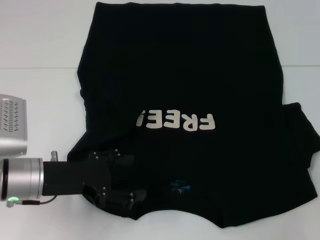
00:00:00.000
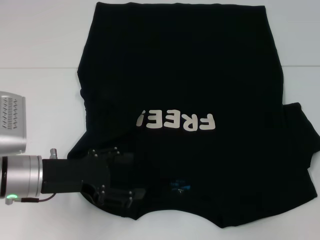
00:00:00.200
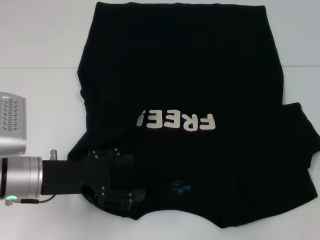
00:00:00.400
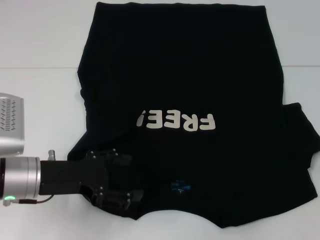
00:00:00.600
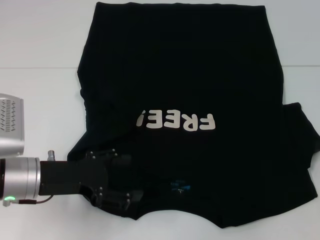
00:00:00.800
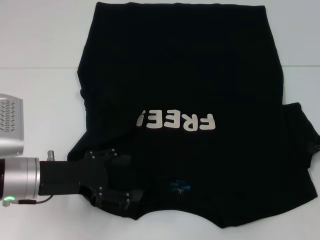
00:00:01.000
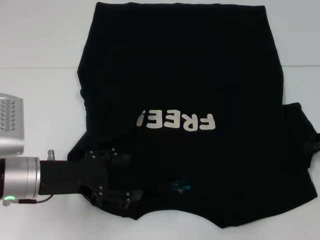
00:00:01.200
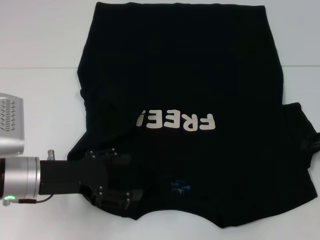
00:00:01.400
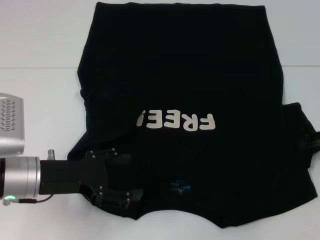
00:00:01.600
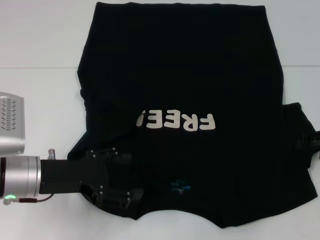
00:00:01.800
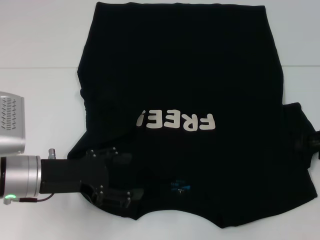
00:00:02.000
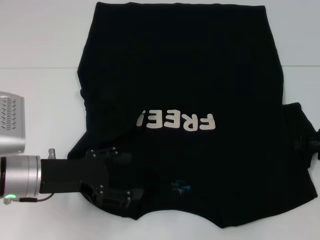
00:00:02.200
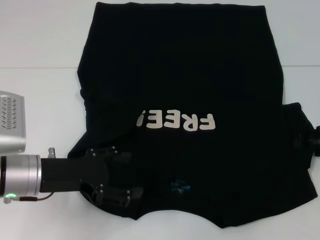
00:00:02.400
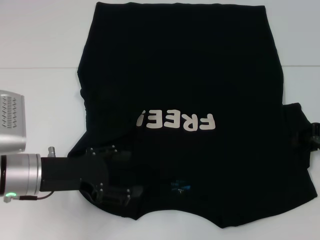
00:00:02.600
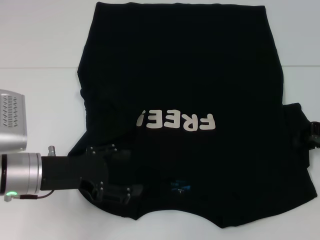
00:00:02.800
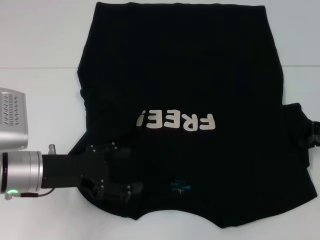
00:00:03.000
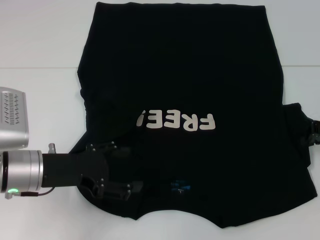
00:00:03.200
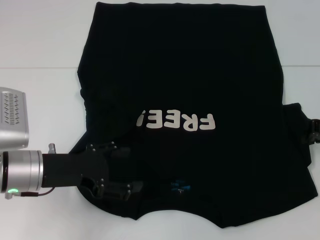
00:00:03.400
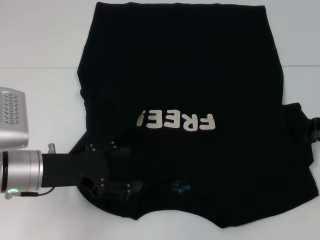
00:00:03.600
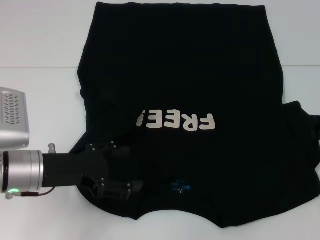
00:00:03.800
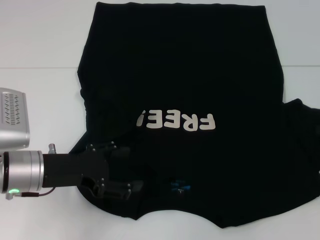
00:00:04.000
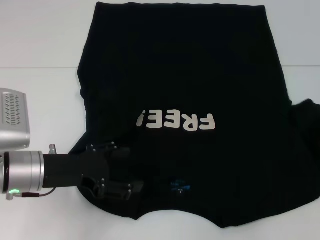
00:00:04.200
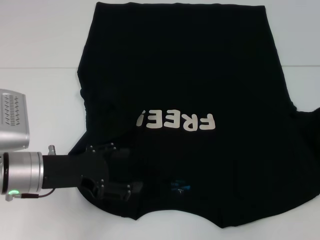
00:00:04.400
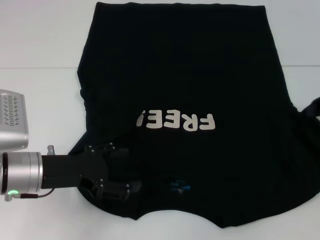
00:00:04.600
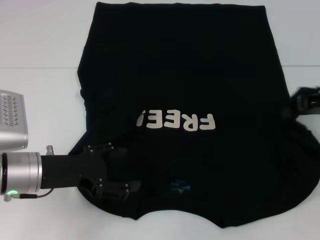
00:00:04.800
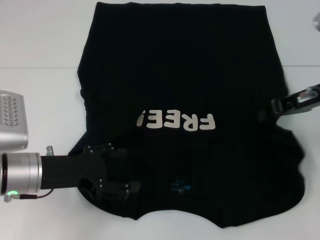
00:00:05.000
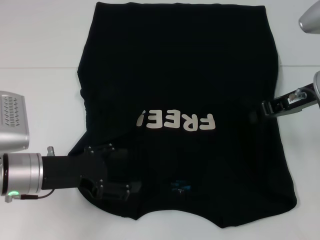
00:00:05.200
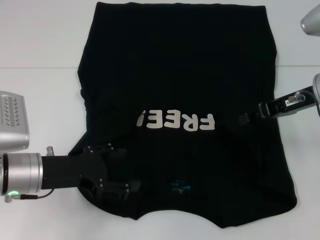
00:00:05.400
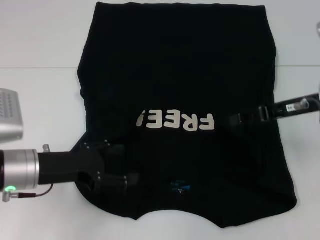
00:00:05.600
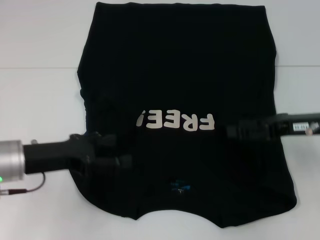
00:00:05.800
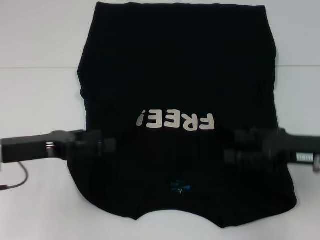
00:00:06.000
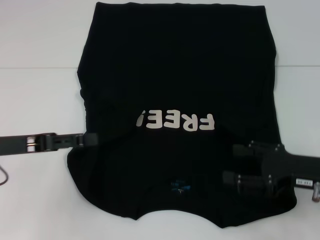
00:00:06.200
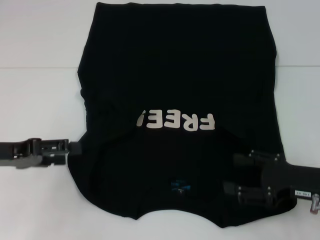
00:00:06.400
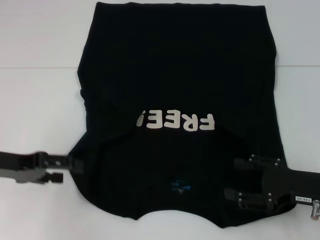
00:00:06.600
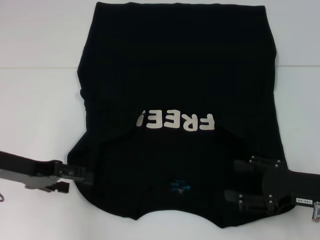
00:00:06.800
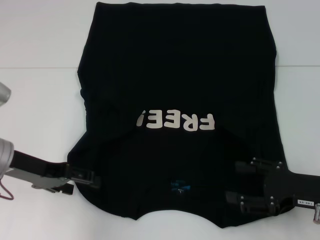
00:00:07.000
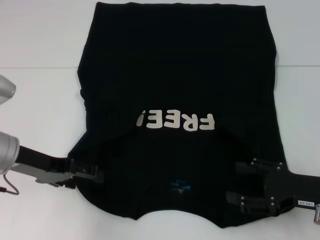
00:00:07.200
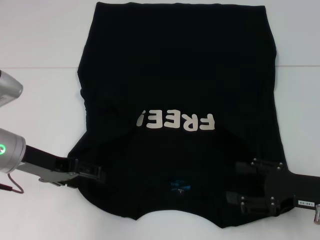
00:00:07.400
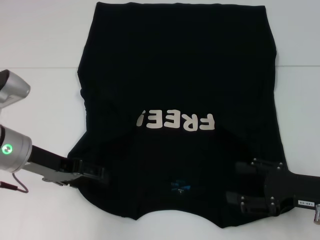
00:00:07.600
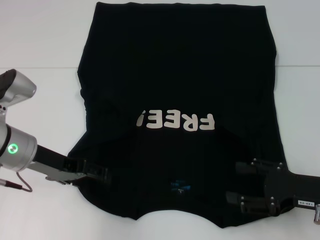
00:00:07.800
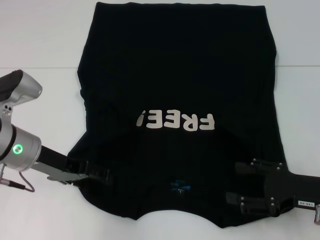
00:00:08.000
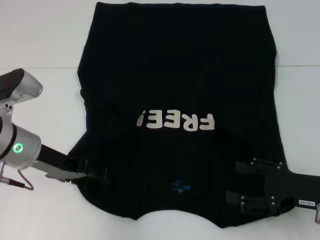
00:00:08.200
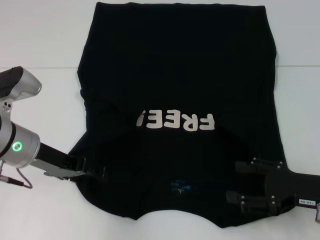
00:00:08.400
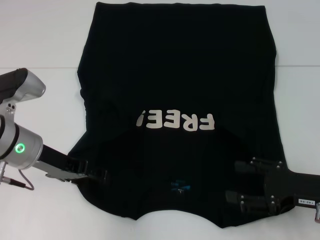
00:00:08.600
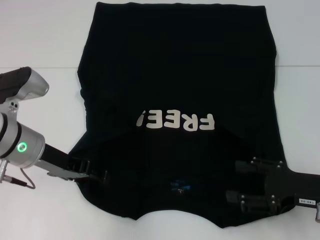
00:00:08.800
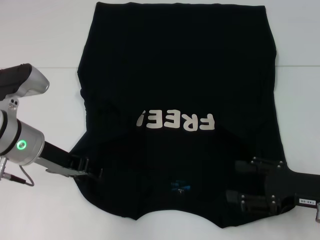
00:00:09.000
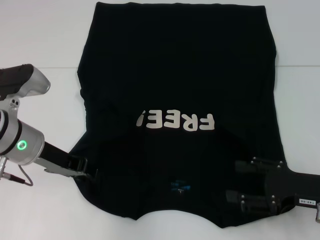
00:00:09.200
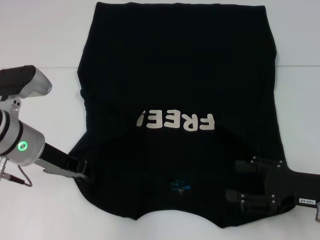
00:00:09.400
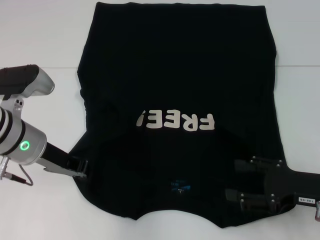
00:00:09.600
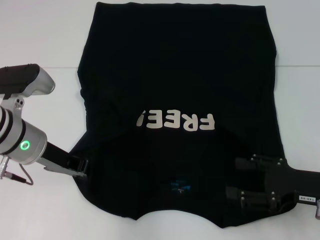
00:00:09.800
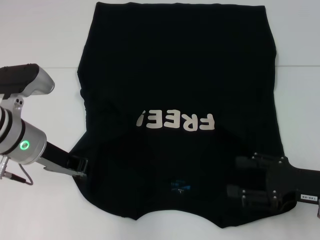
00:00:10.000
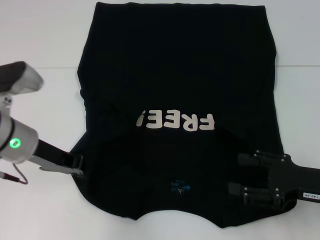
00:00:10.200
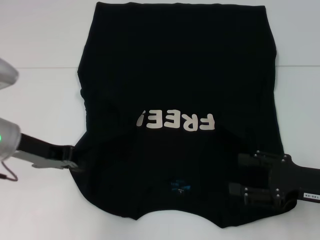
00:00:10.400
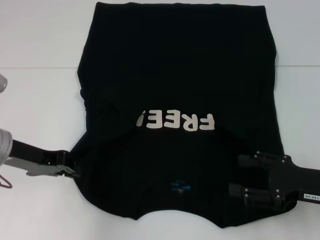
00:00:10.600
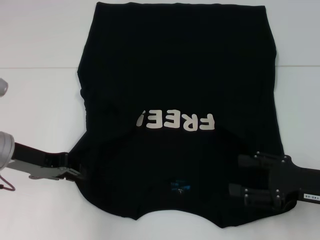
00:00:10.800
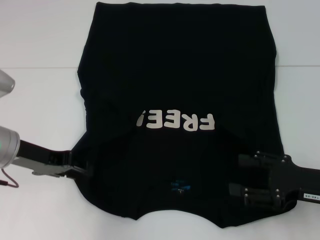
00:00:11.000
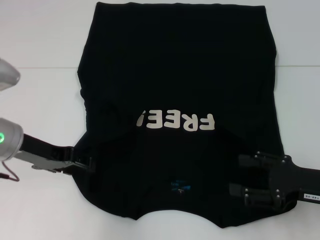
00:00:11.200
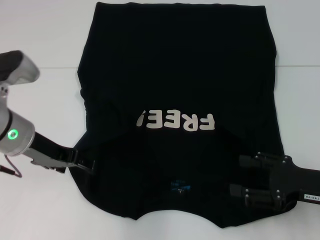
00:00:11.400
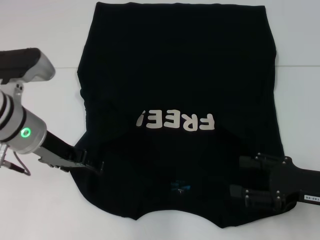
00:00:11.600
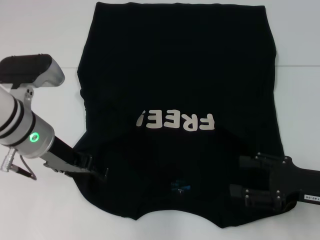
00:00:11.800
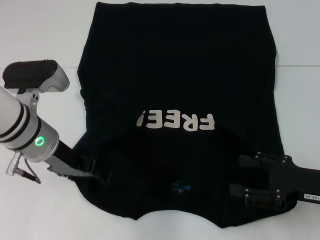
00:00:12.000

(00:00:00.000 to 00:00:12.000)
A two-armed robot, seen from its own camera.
Step, 00:00:00.000 - 00:00:05.600: Fold the bottom right sleeve with your right hand.
00:00:03.000 - 00:00:04.400: The right gripper changes place by roughly 5 cm.
00:00:04.400 - 00:00:06.000: The right gripper shifts approximately 10 cm to the left, backward and downward, and opens up; the left gripper moves approximately 5 cm.
00:00:06.000 - 00:00:07.600: The right gripper moves approximately 5 cm.
00:00:07.600 - 00:00:09.000: The grippers move only a little.
00:00:09.000 - 00:00:10.400: The left gripper closes its fingers.
00:00:10.400 - 00:00:12.000: The left gripper travels to the right by about 5 cm, and opens.

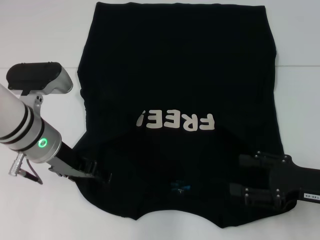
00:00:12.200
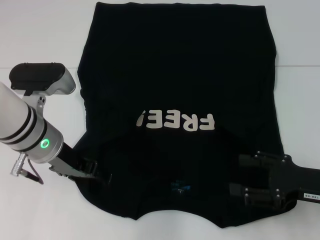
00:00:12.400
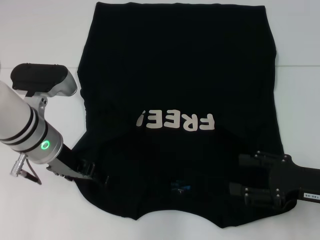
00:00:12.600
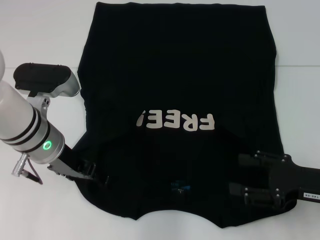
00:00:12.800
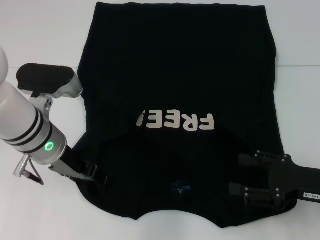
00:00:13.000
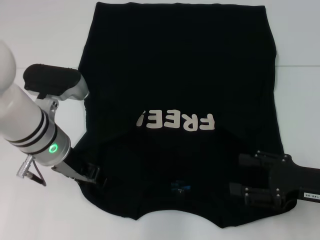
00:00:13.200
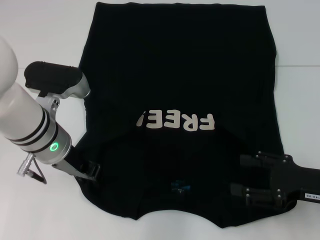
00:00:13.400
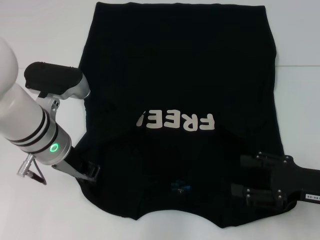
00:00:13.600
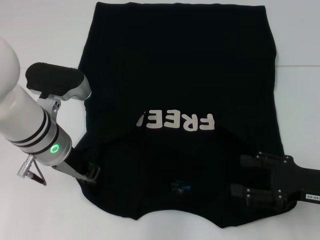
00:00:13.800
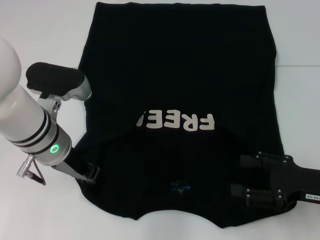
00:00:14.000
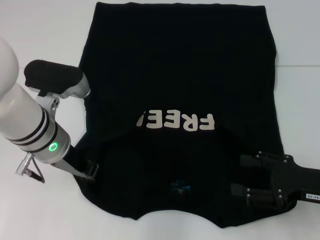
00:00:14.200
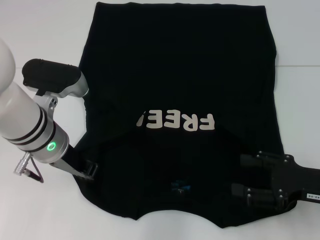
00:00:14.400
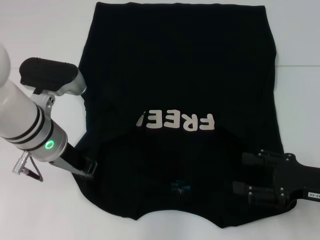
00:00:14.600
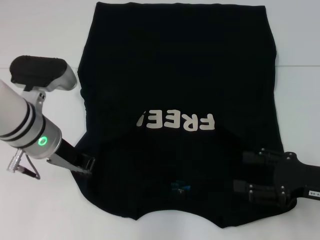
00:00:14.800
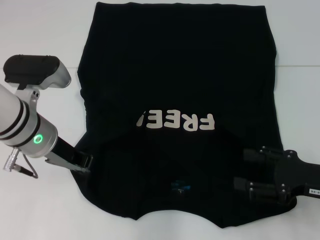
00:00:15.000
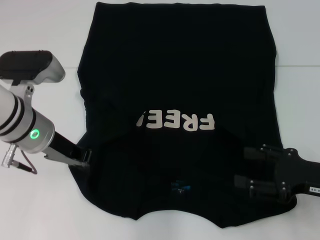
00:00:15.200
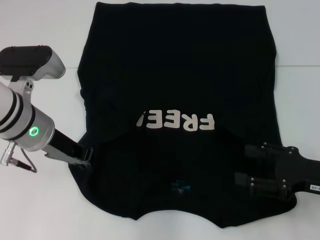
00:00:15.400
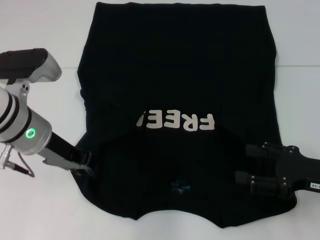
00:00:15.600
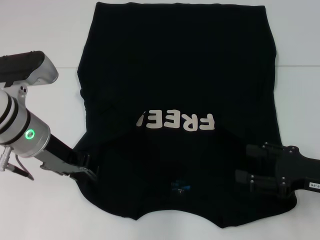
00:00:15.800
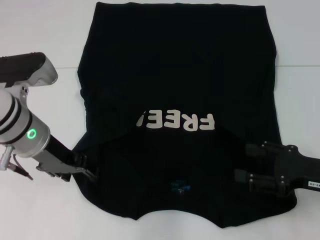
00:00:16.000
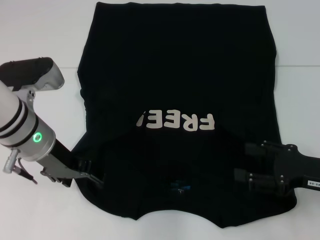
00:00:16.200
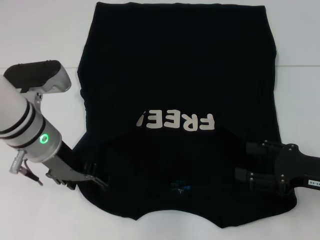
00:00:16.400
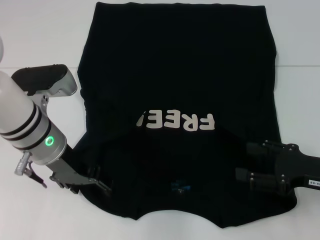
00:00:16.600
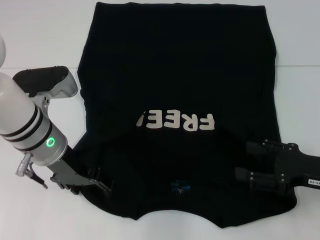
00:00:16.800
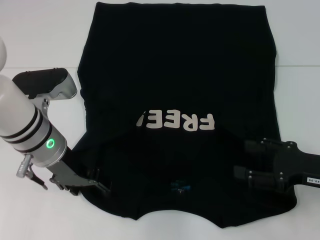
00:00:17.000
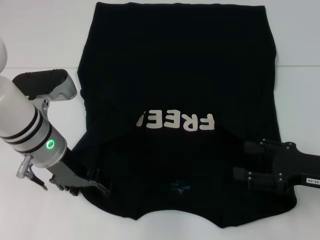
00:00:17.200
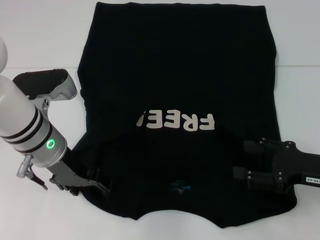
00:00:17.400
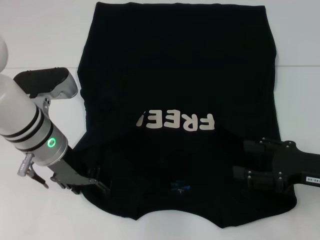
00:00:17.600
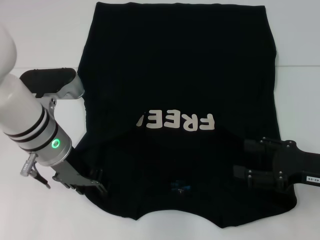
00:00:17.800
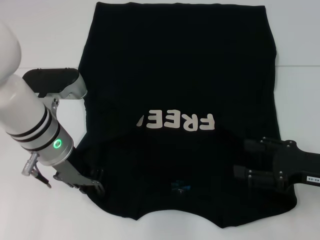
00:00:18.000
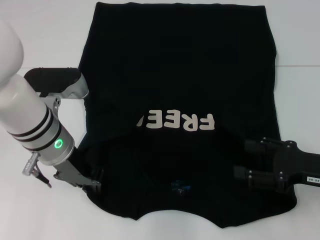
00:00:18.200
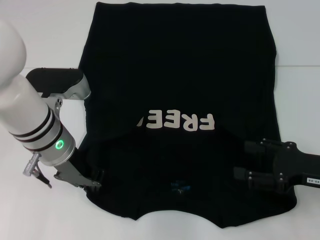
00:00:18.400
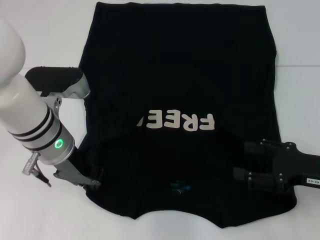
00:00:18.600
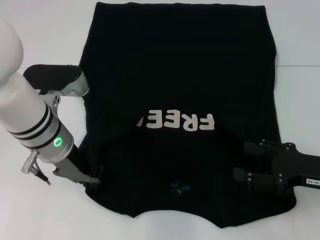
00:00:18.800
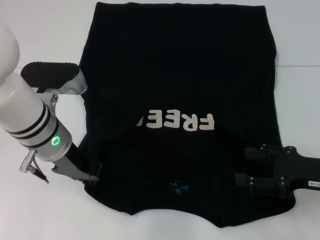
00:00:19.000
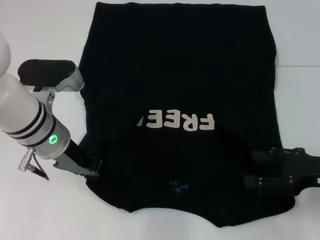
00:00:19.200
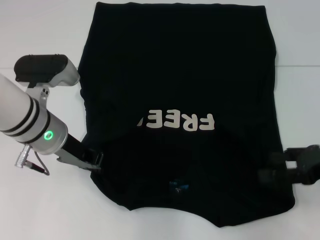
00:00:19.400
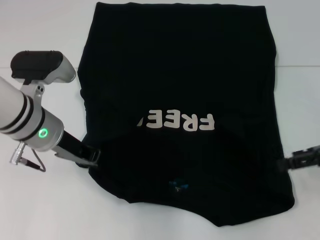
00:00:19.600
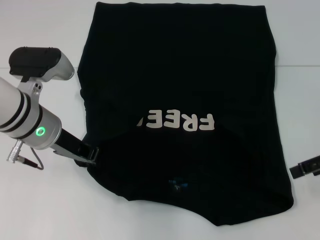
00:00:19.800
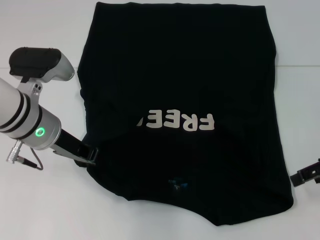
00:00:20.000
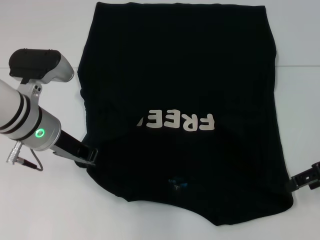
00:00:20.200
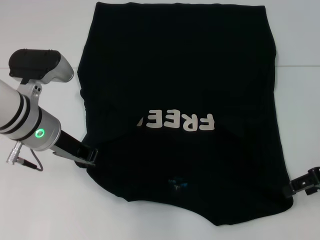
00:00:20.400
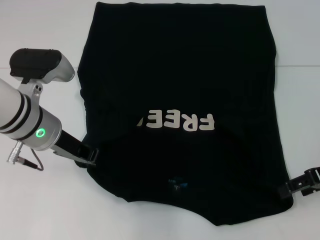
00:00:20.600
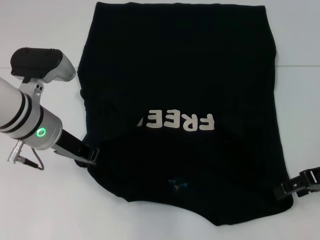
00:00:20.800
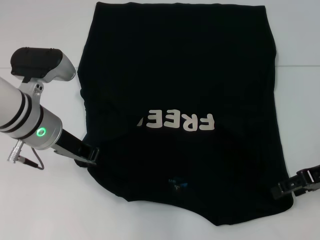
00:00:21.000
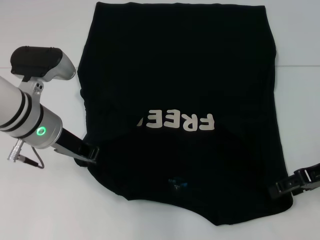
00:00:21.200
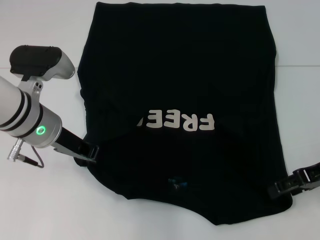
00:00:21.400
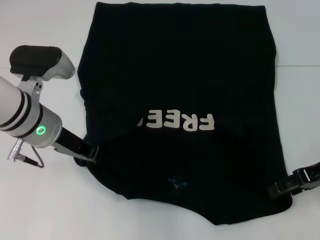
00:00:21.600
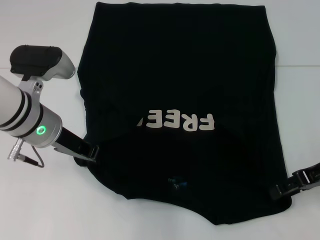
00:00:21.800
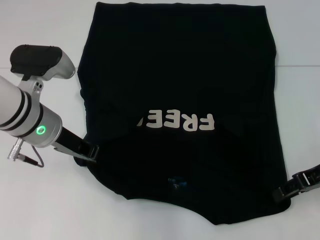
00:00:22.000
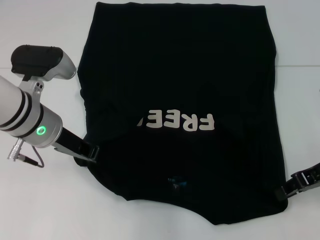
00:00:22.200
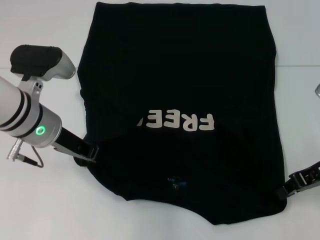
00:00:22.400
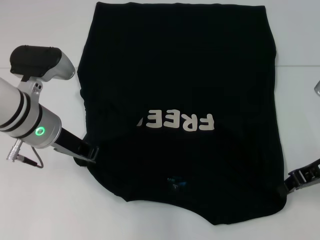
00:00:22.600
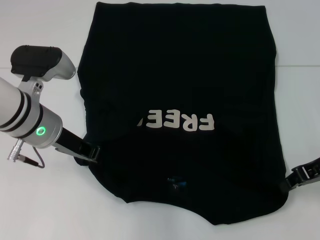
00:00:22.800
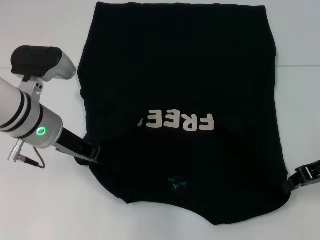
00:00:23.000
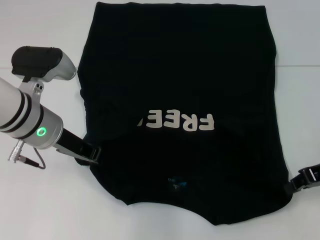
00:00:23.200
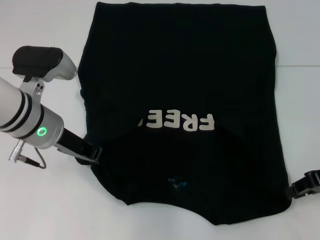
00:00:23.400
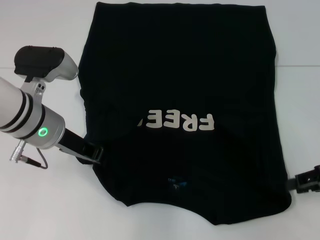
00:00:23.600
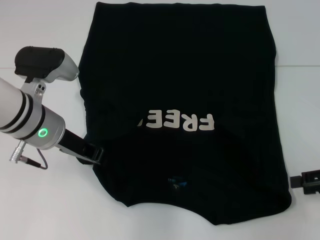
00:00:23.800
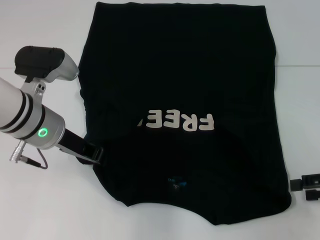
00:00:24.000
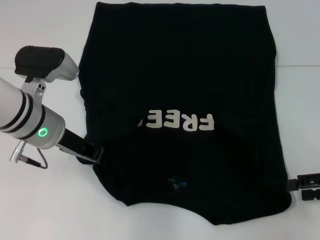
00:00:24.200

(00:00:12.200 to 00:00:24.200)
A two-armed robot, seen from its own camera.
Step, 00:00:12.200 - 00:00:19.000: Grab the bottom left corner with your left hand.
00:00:12.200 - 00:00:13.800: The left gripper closes.
00:00:13.800 - 00:00:15.200: The grippers move only a little.
00:00:15.200 - 00:00:16.600: The left gripper opens.
00:00:16.600 - 00:00:18.200: The left gripper closes its fingers.
00:00:18.200 - 00:00:19.800: The left gripper closes up. Meanwhile the right gripper heads upward, covering some 10 cm.
00:00:19.800 - 00:00:21.200: The right gripper changes place by some 5 cm.
00:00:21.200 - 00:00:22.600: The right gripper closes its fingers.
00:00:22.600 - 00:00:24.200: The right gripper is displaced to the right and backward by roughly 10 cm, and opens.
